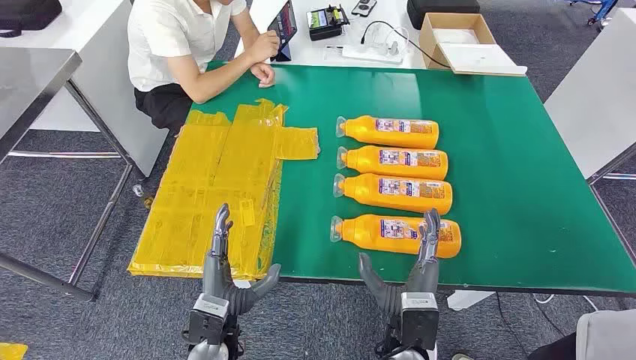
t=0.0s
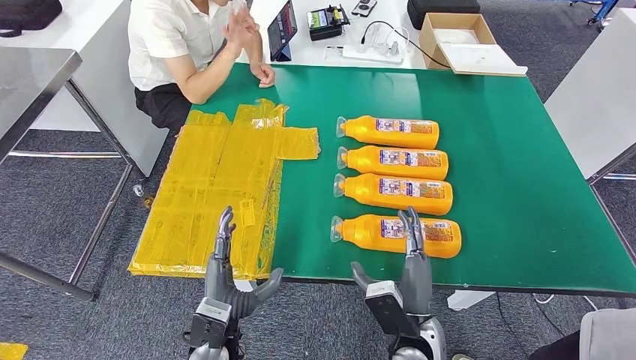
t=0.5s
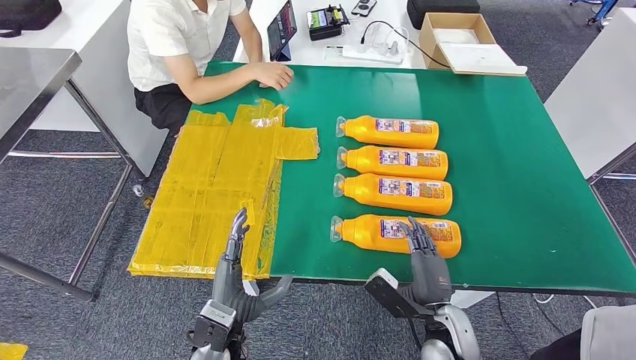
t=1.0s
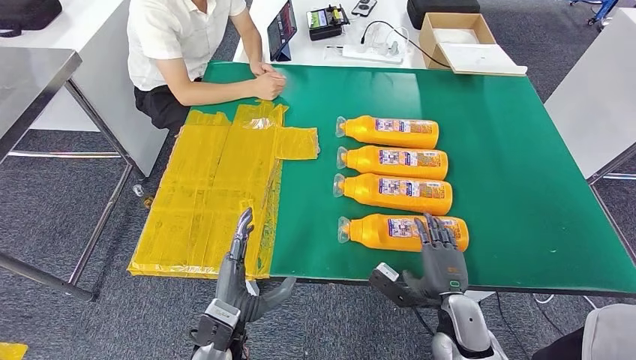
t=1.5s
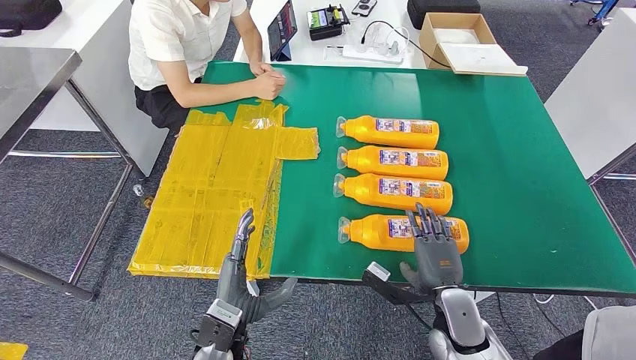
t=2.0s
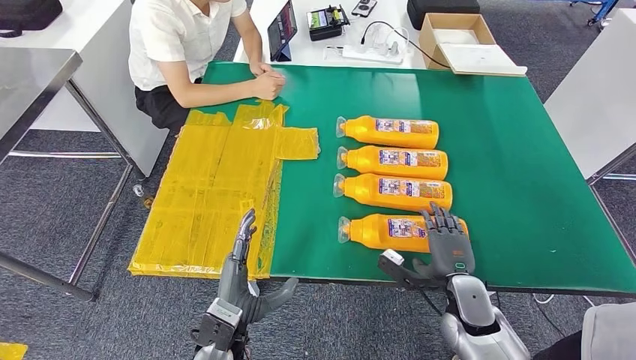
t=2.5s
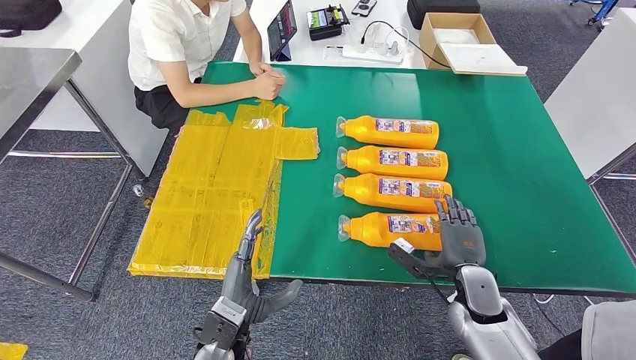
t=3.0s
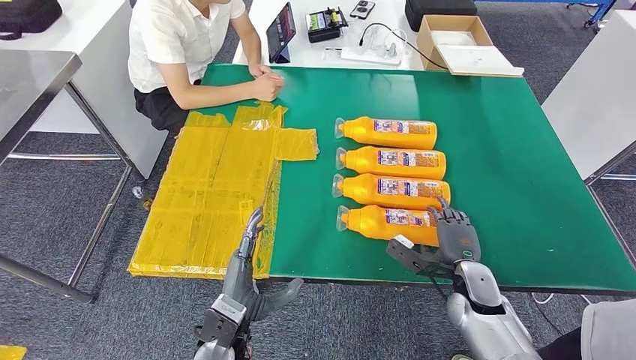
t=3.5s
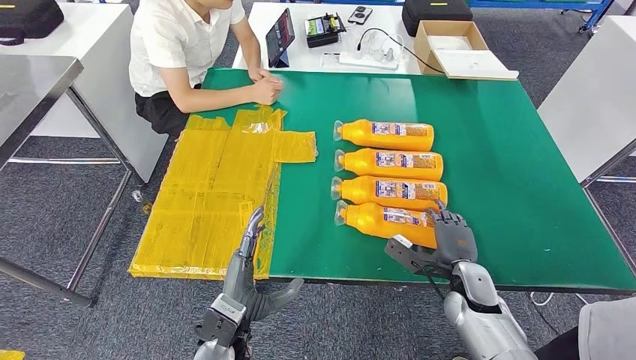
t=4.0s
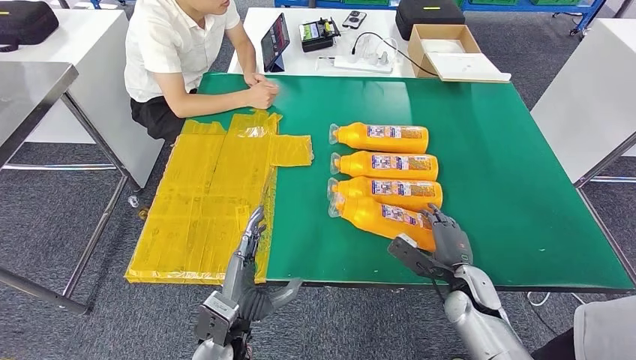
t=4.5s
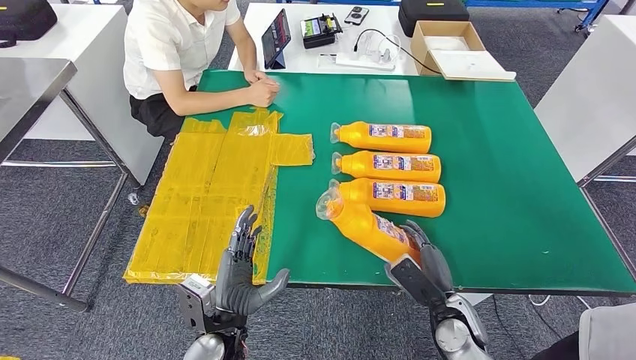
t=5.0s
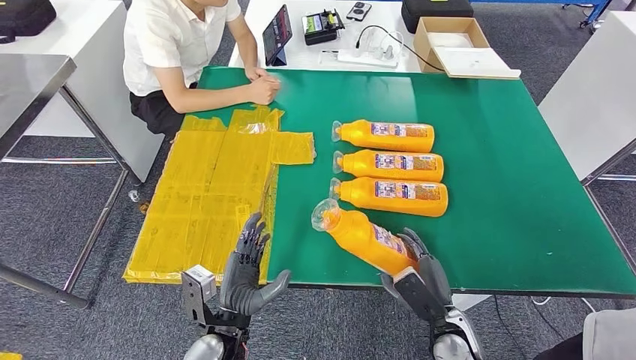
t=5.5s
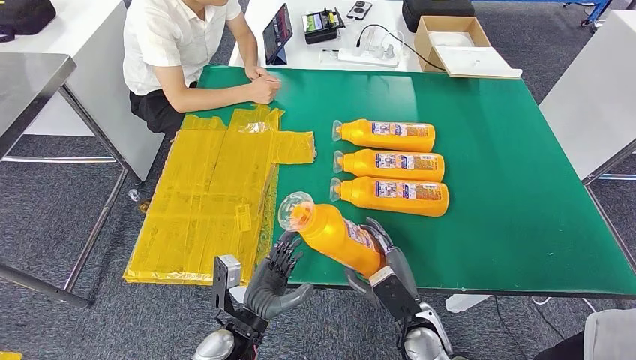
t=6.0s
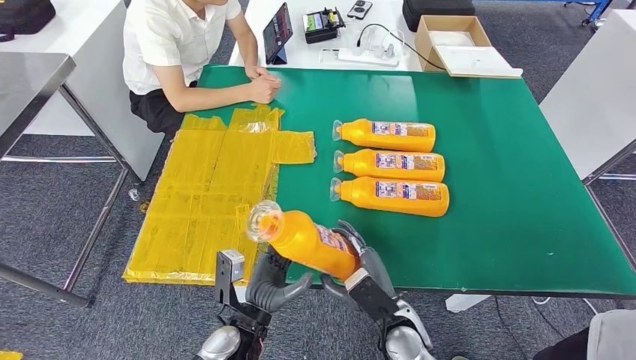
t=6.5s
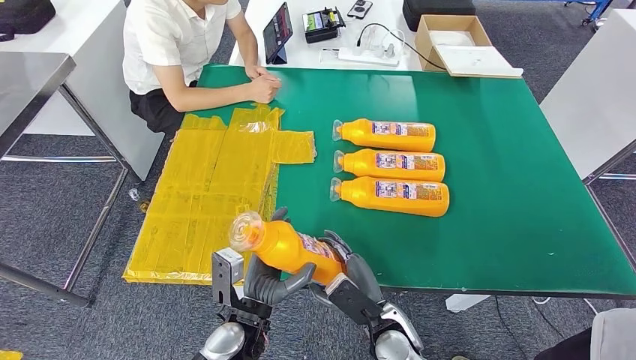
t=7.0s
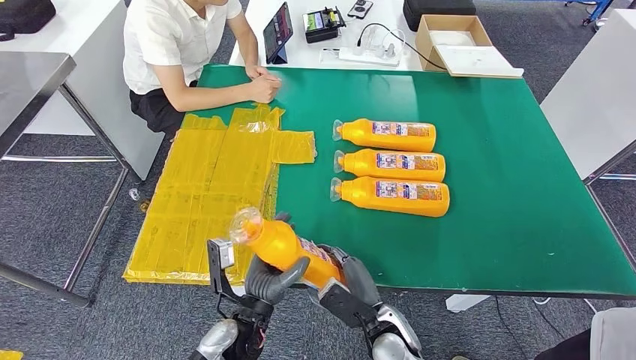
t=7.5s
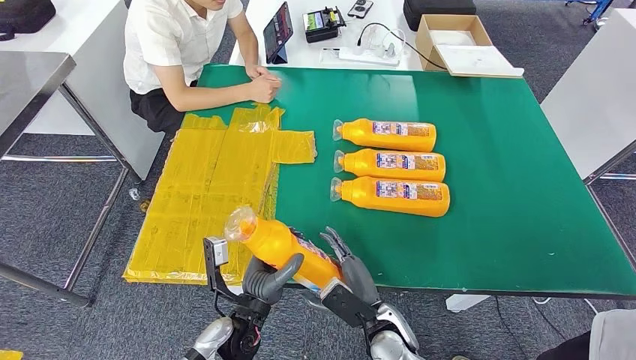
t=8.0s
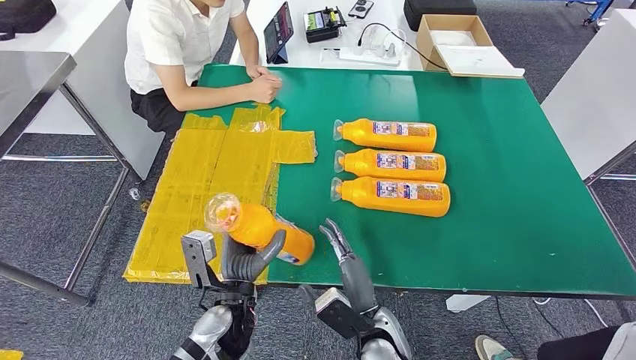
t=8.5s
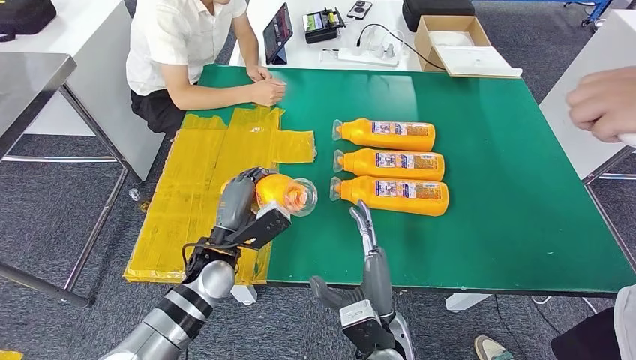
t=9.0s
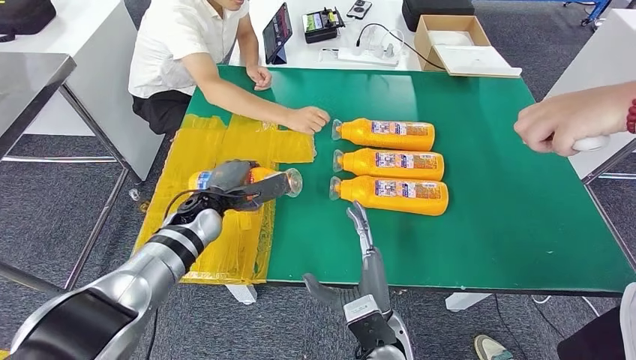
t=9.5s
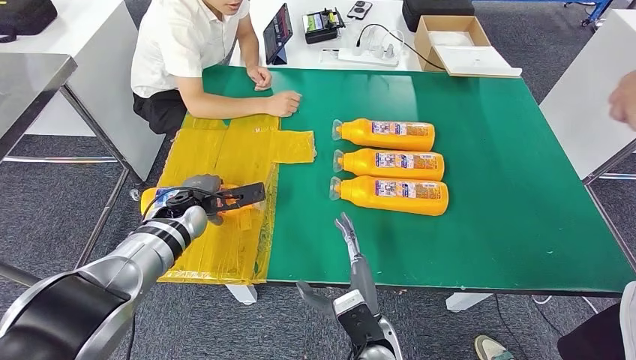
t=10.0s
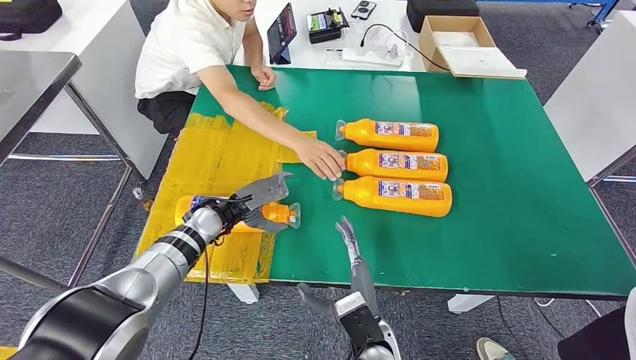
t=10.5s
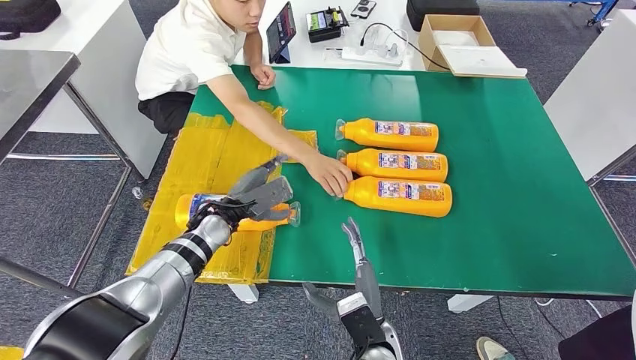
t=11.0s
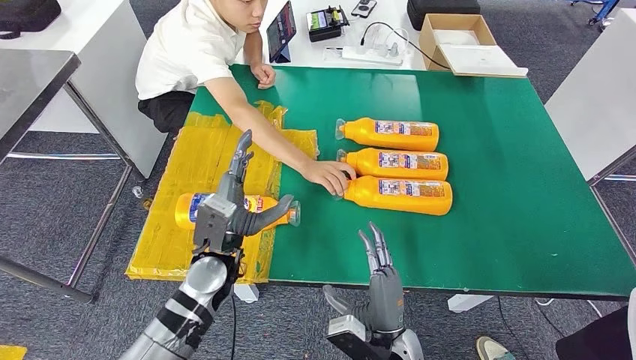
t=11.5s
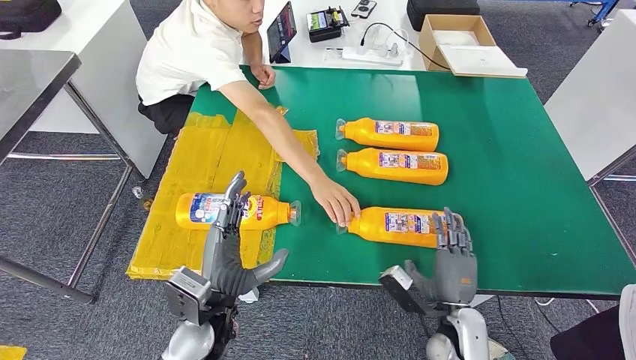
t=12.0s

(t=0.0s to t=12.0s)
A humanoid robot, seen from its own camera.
Step, t=0.0s - t=5.0s: Take the bottle from the table.
Step, t=6.0s - t=11.5s: Flip the bottle to face forward.
t=6.0s - t=8.0s: The right hand goes about 5 cm to the left.

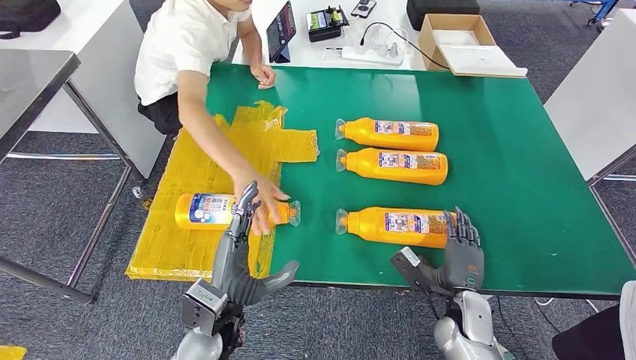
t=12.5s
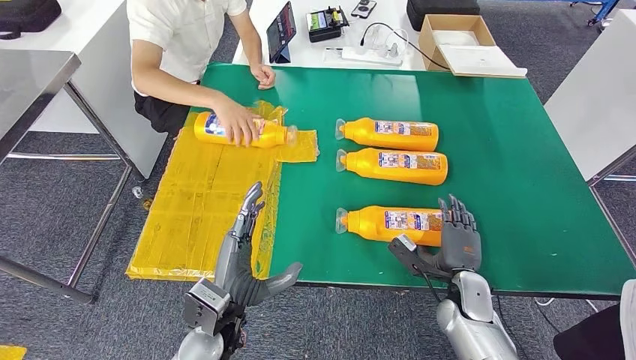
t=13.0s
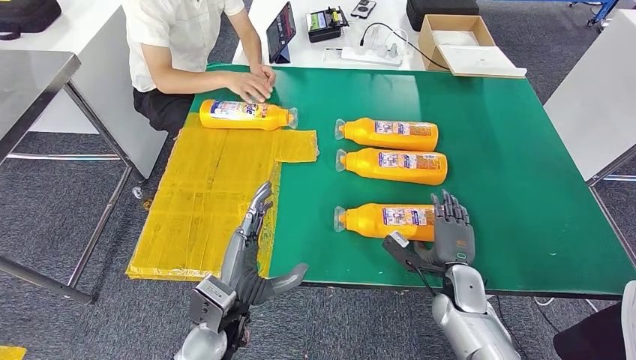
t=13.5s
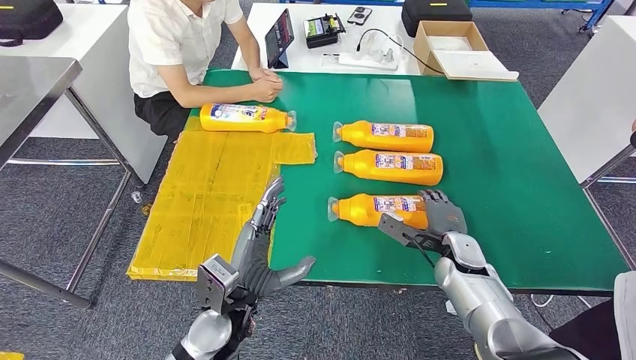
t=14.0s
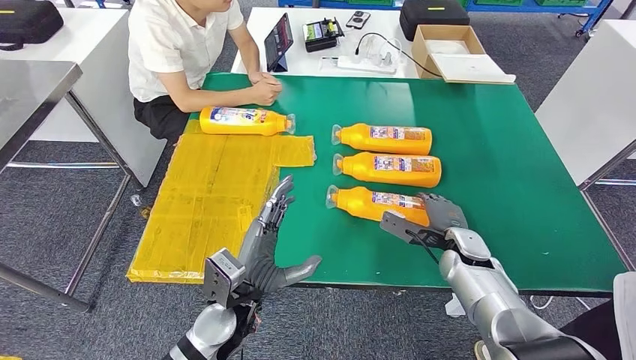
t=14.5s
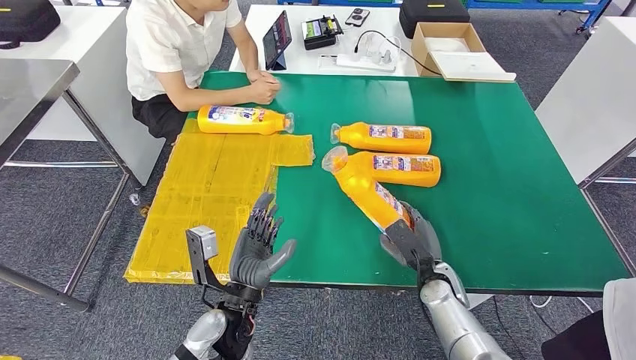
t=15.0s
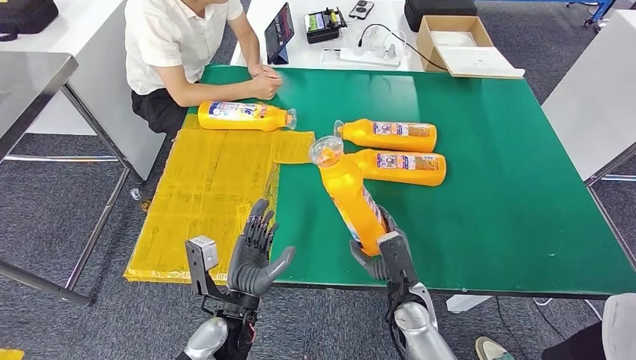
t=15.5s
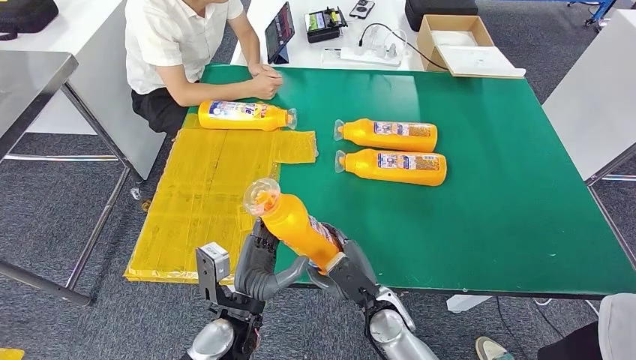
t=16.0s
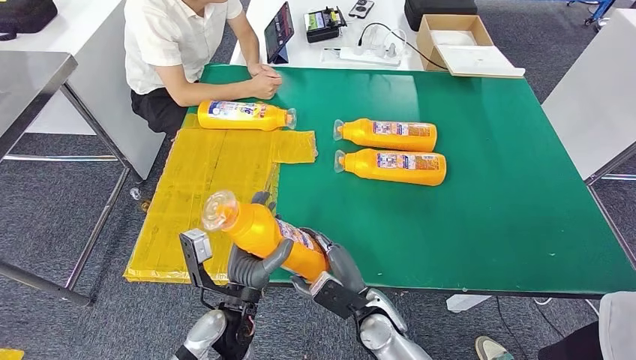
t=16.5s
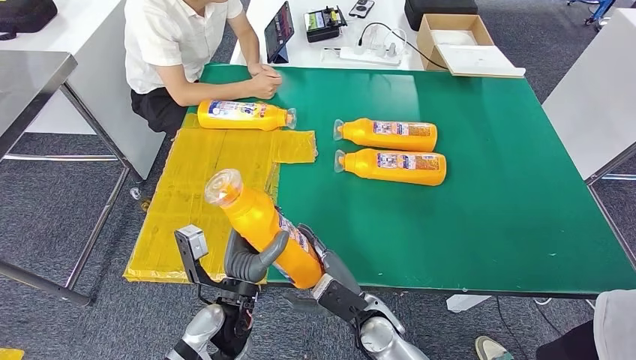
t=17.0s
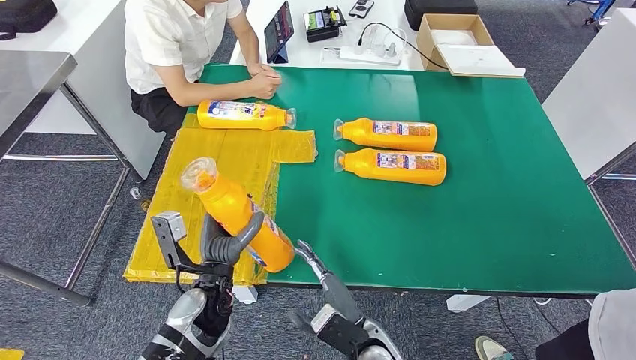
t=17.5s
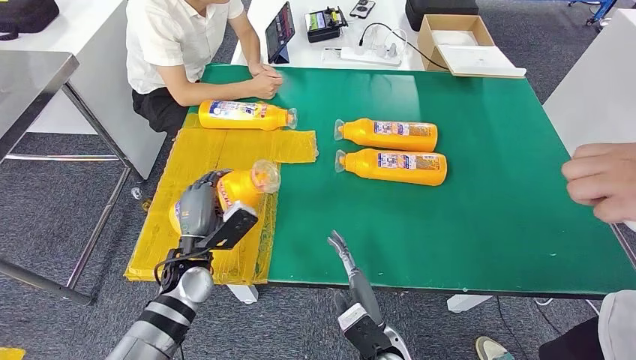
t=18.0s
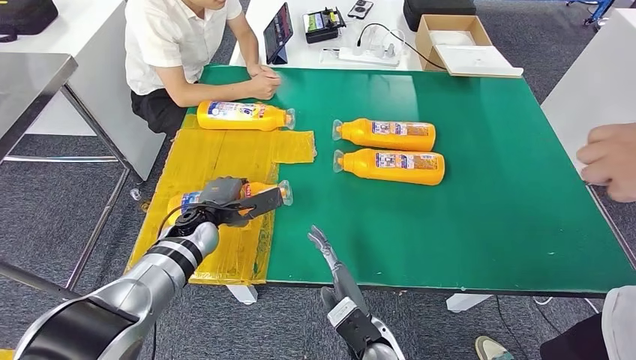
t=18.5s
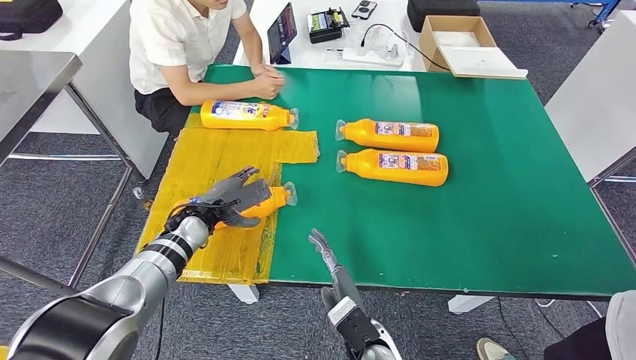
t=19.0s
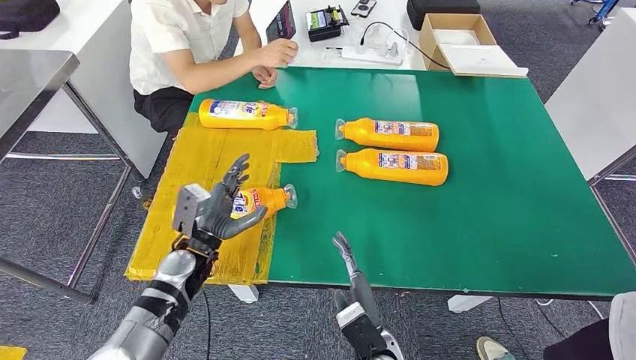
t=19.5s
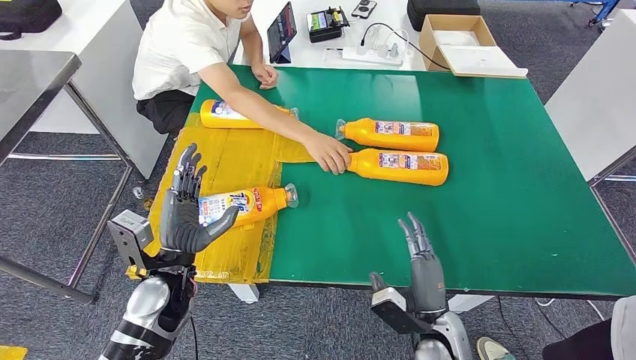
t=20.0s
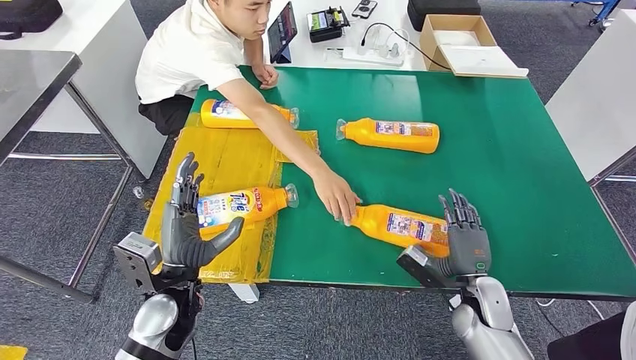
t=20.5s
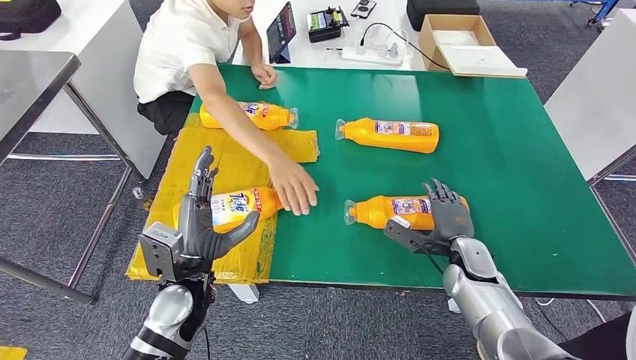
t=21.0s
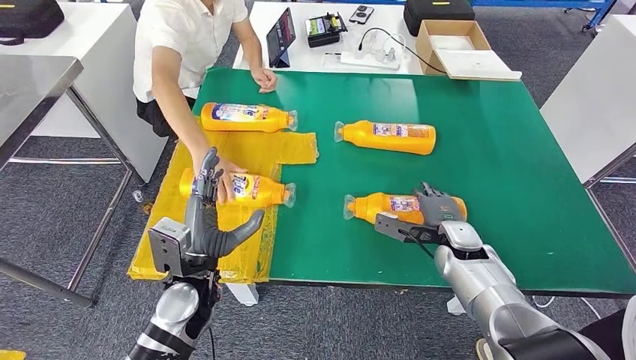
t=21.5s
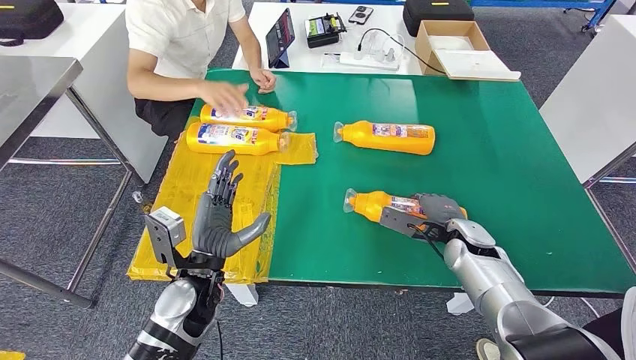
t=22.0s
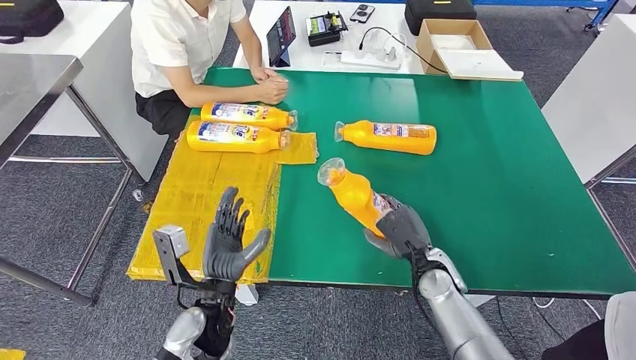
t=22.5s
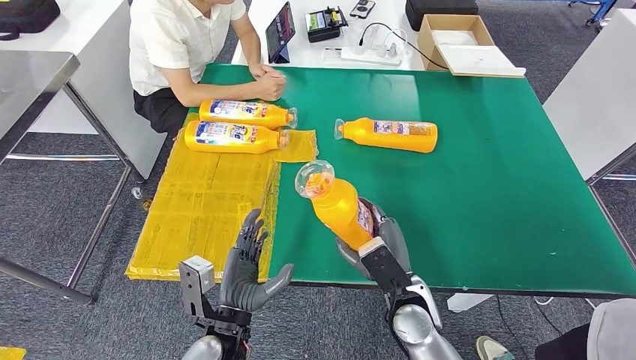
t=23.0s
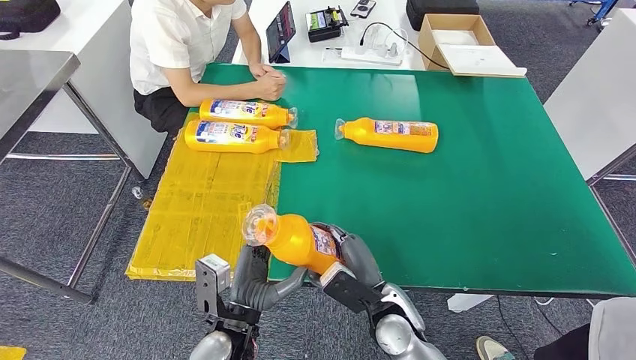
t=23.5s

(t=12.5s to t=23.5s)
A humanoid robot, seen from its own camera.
Step, t=12.5s - t=15.0s: Pick up the bottle from the table.
Step, t=16.0s - t=19.5s: Flip the bottle to face forward.
Step, t=20.5s - t=22.5s: Pick up the bottle from the table.
t=16.0s - t=18.0s: The left hand shifts some 15 cm forward and to the left, while the right hand is displaced backward by roughly 5 cm.
